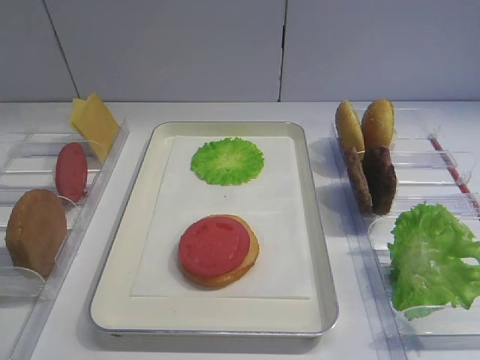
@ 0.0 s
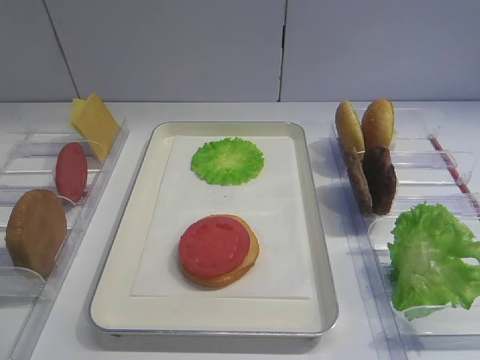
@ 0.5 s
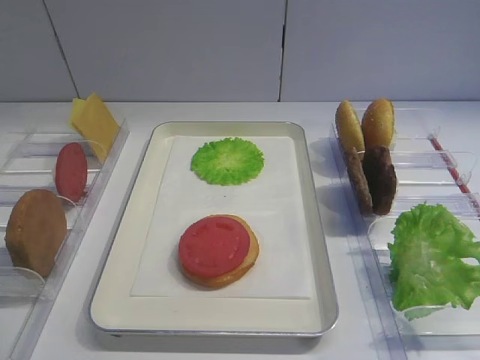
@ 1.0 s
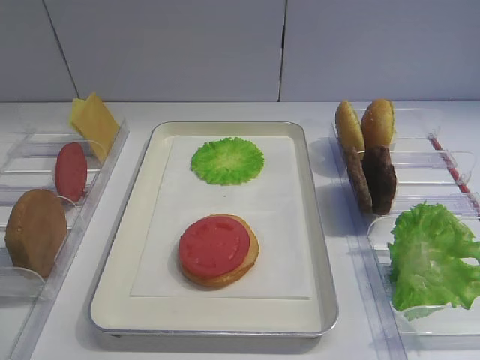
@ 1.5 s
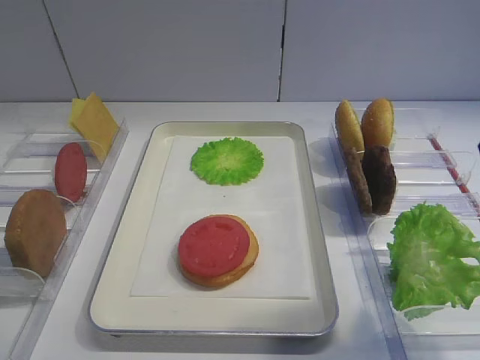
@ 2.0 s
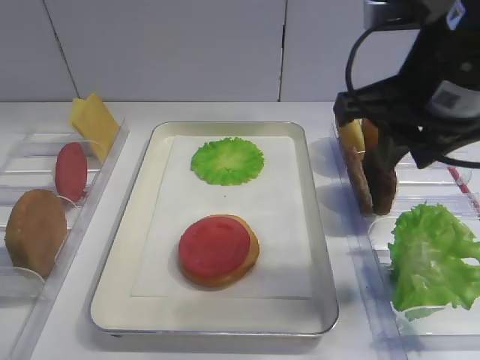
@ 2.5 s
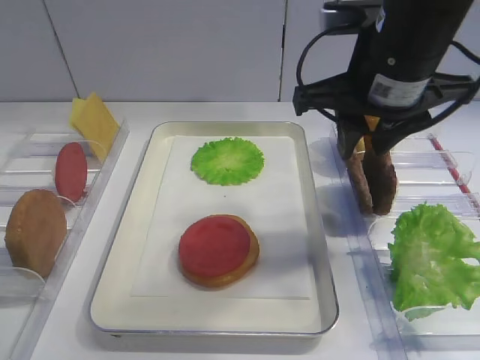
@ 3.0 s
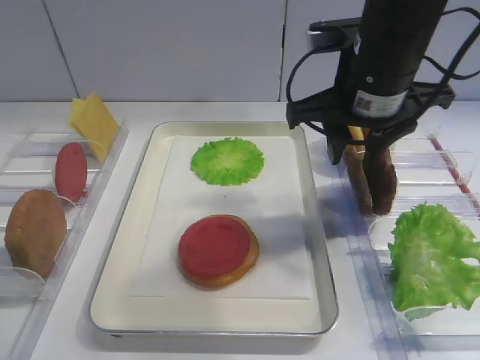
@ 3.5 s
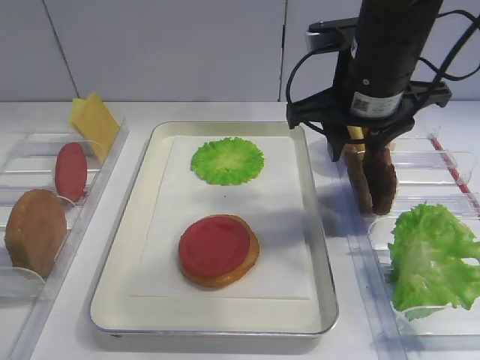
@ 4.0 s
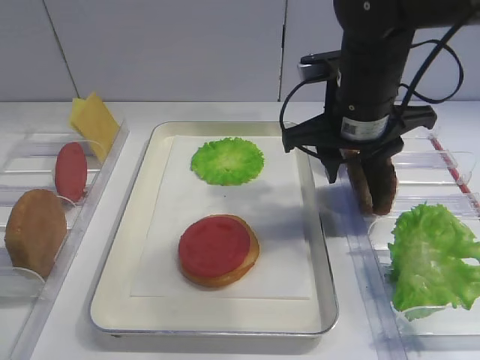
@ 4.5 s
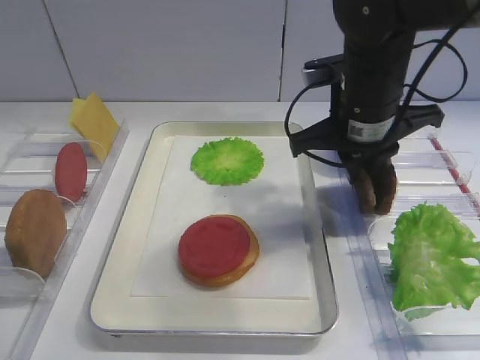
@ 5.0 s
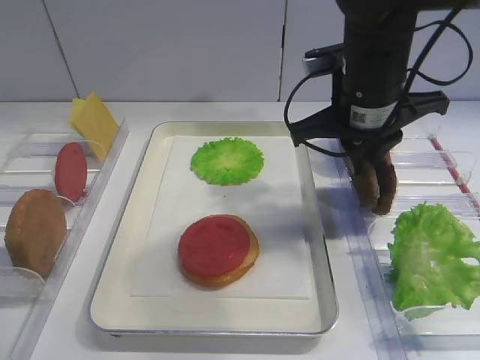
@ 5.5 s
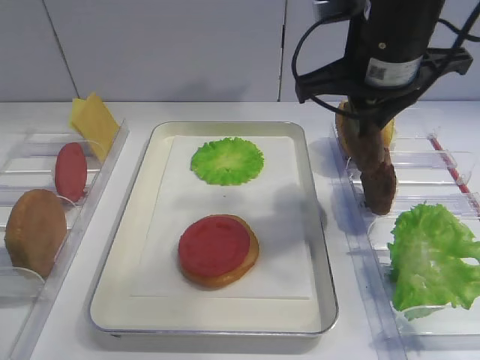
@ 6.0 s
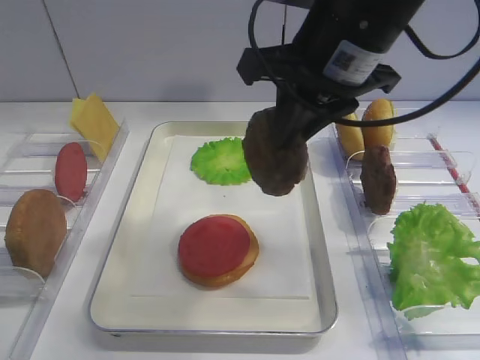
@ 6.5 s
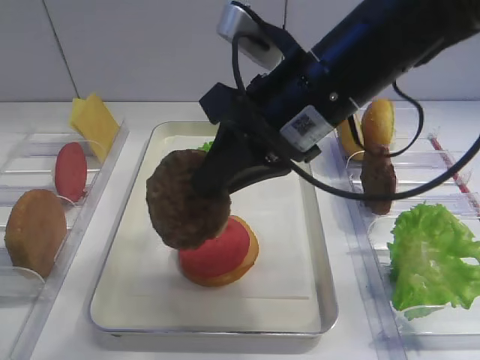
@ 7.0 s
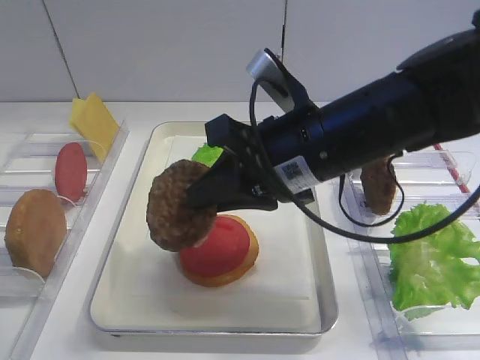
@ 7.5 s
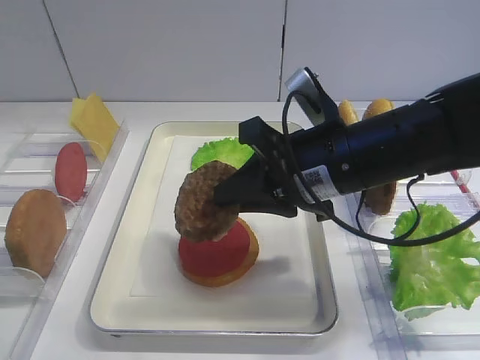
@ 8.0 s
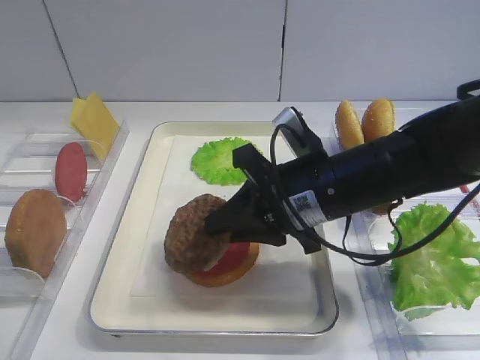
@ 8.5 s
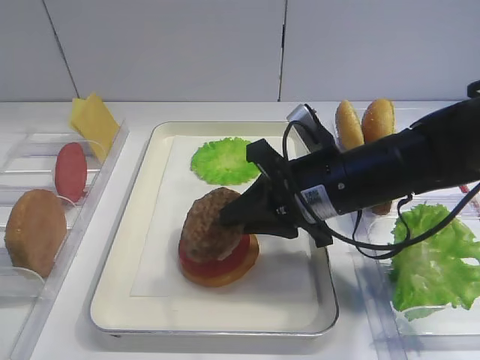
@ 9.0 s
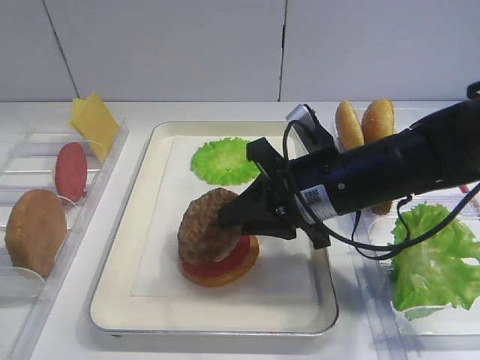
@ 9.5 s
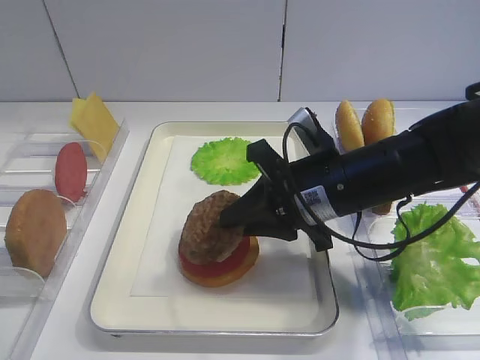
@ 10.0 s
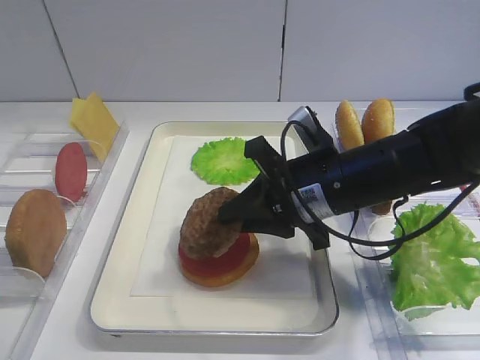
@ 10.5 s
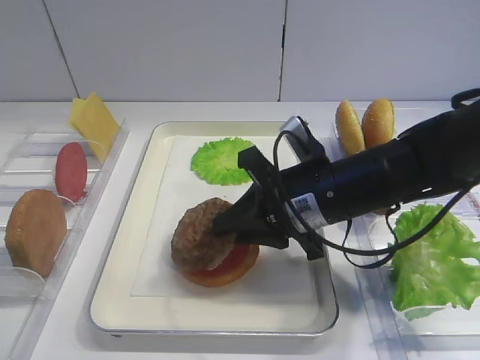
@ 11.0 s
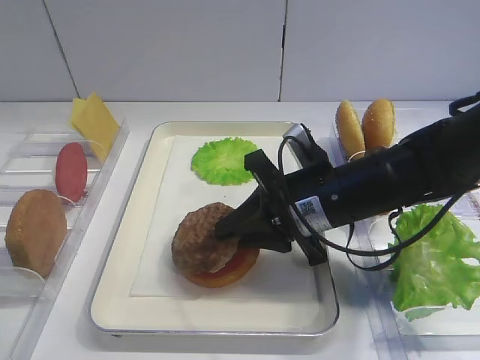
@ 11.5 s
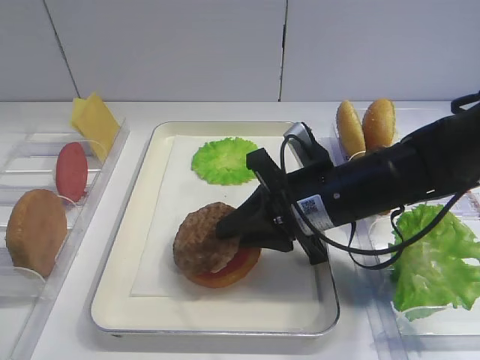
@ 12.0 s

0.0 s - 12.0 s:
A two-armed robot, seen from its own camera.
Step, 0.0 s - 5.5 s: Pick up the cutlet with the right gripper.
2.0 s - 4.0 s: The right gripper travels forward, to the left and downward by about 20 cm.
4.0 s - 6.0 s: The right gripper closes up.
6.0 s - 8.0 s: The right gripper heads downward and backward, covering approximately 10 cm.
8.0 s - 10.0 s: The grippers make only small movements.
10.0 s - 12.0 s: The grippers move only a little.

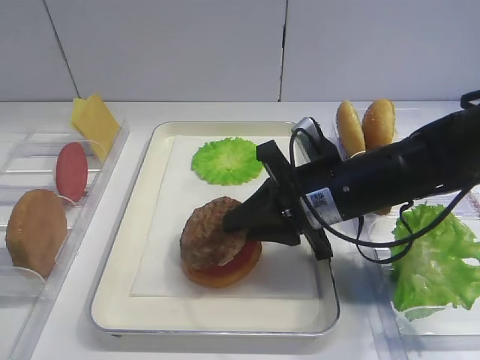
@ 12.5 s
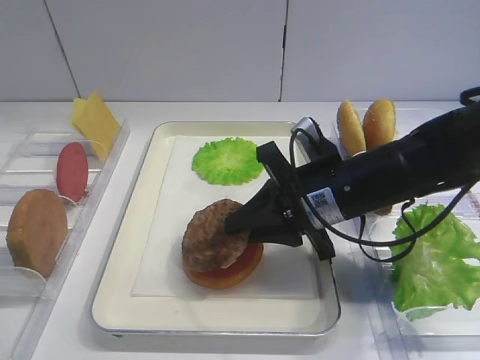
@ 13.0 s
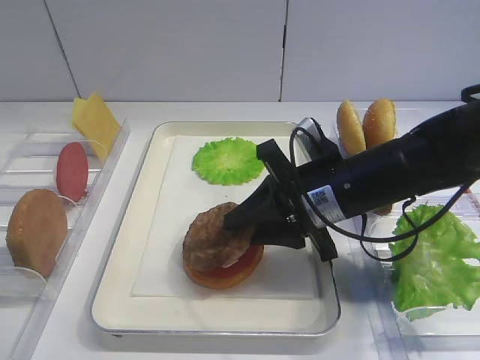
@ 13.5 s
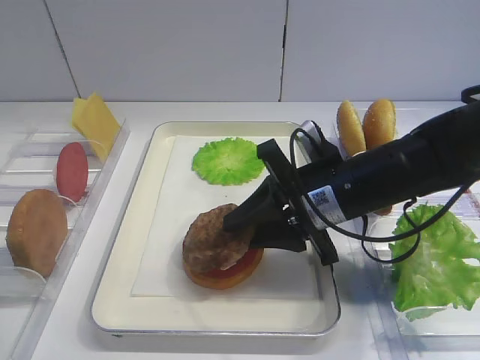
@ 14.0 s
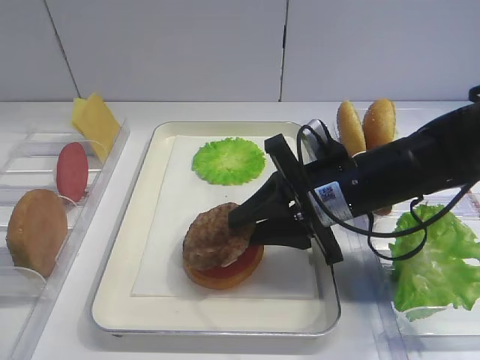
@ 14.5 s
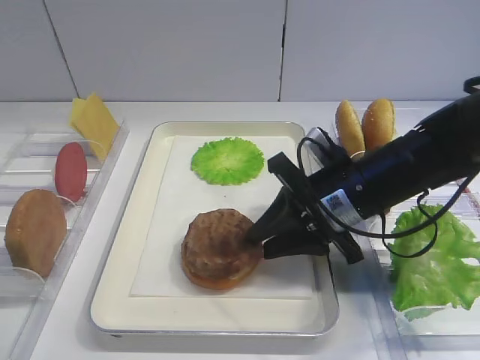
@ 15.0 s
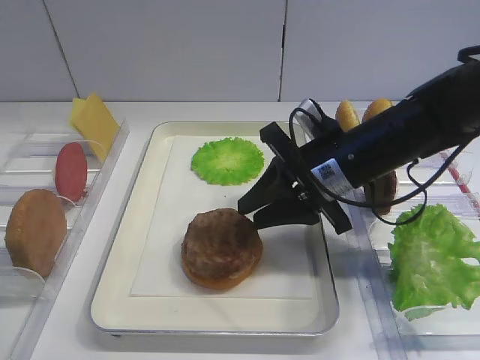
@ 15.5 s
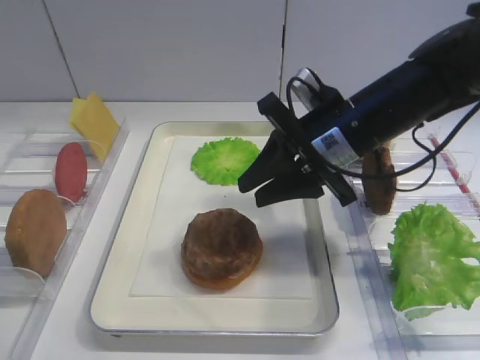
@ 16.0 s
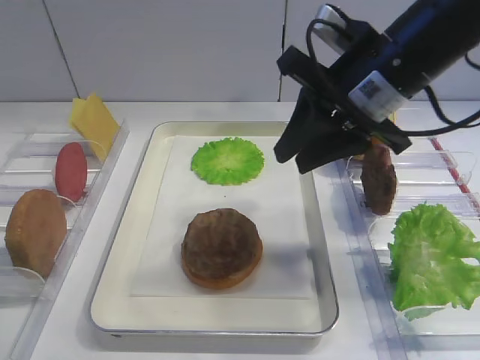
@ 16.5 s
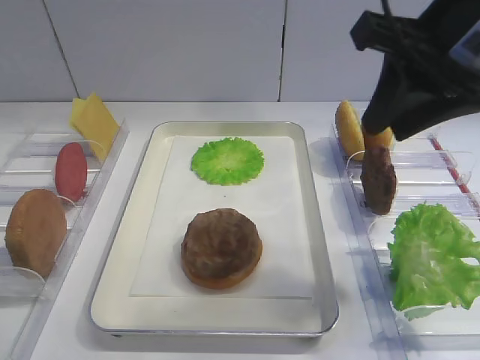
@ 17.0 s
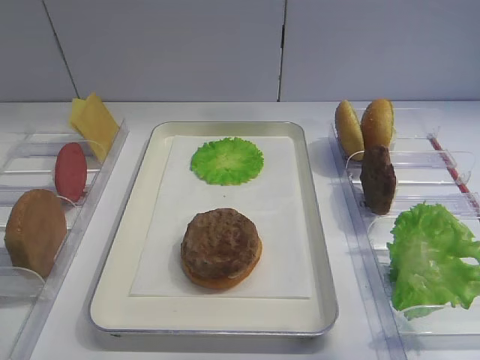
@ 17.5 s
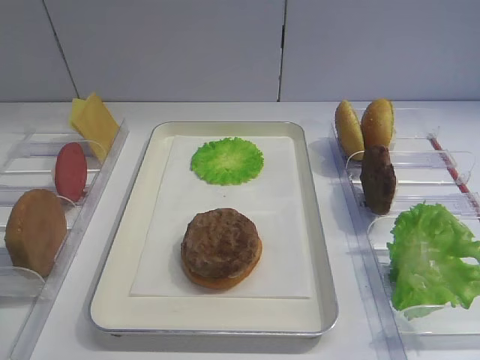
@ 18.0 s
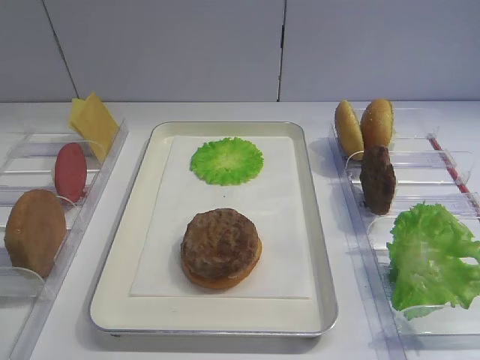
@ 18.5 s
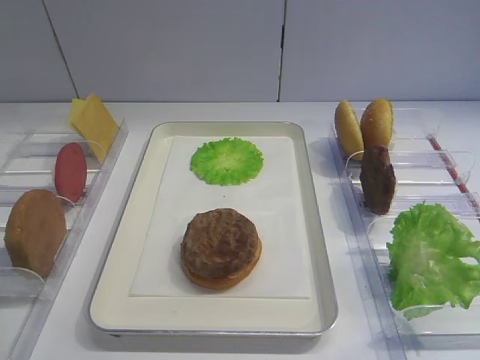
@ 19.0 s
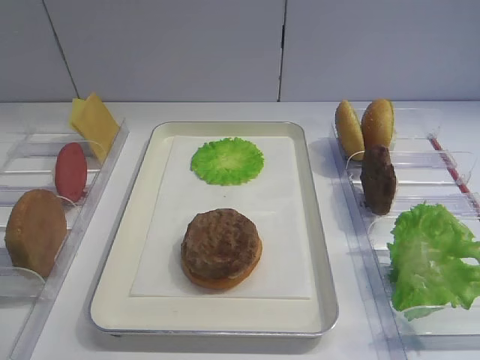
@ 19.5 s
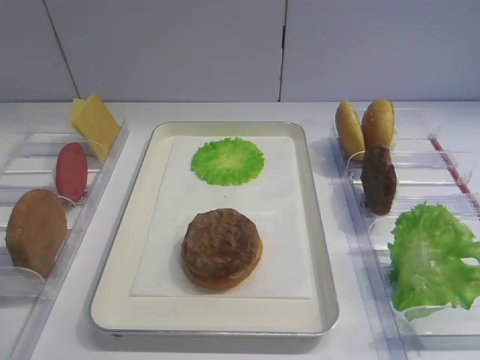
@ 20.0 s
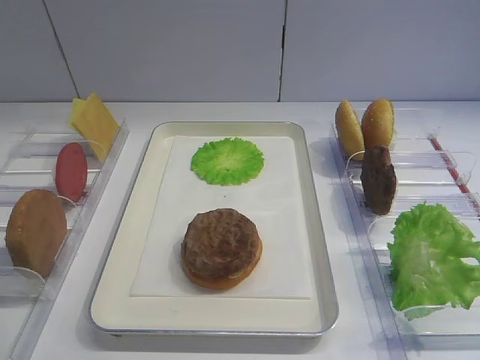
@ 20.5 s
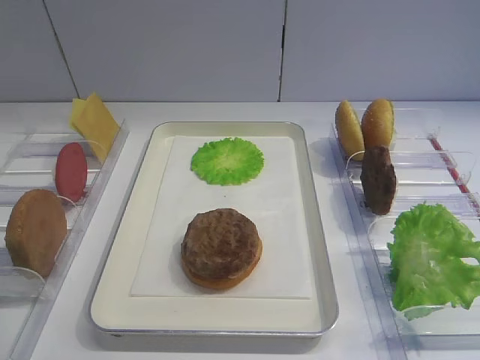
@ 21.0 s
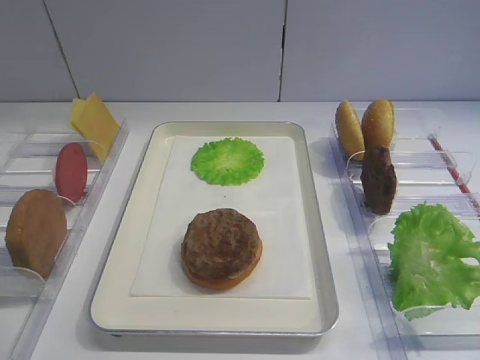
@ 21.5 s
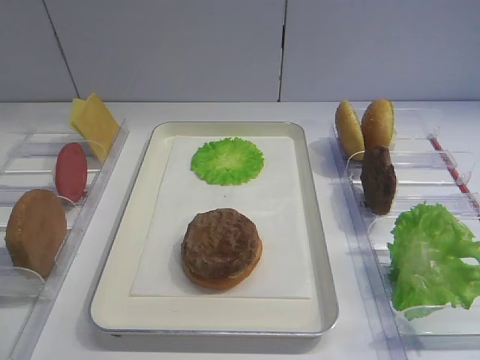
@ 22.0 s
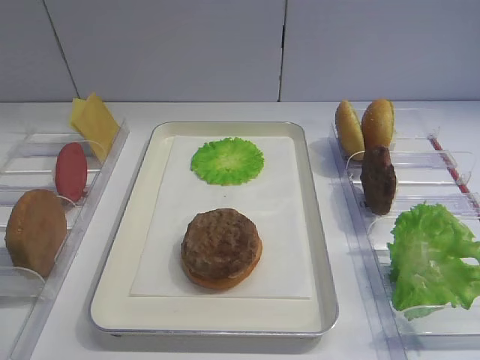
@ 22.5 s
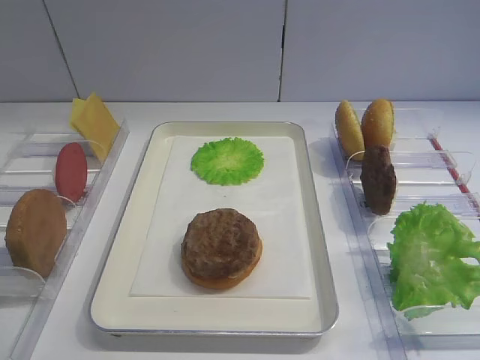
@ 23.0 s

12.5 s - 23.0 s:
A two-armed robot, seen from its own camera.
Step, 12.5 s - 15.5 s: Place the cutlet on the tomato slice with the right gripper.
12.5 s - 14.5 s: The right gripper opens up.
14.5 s - 16.5 s: The right gripper is displaced upward by approximately 10 cm.
16.5 s - 19.0 s: The right gripper heads backward and to the right, covering roughly 35 cm.

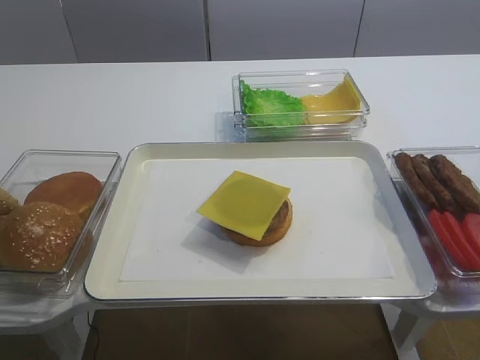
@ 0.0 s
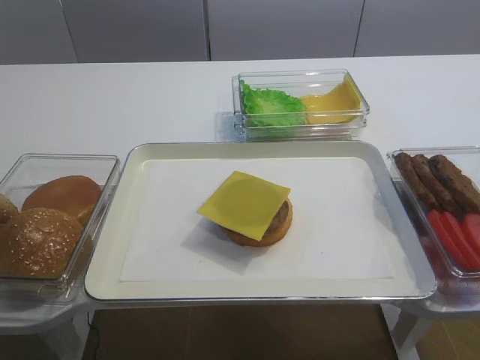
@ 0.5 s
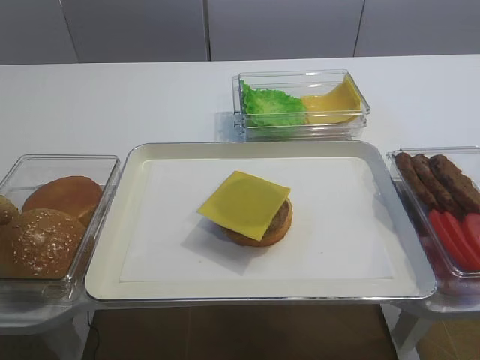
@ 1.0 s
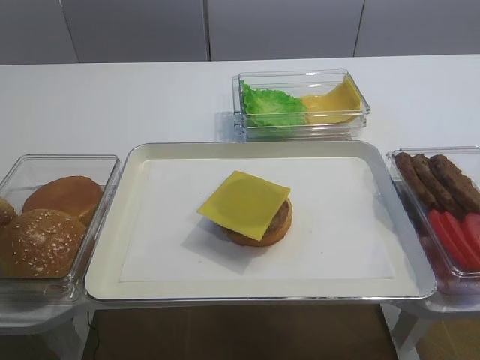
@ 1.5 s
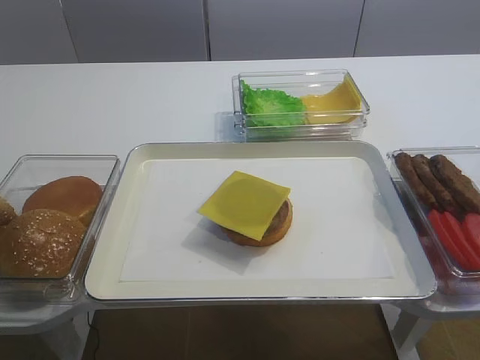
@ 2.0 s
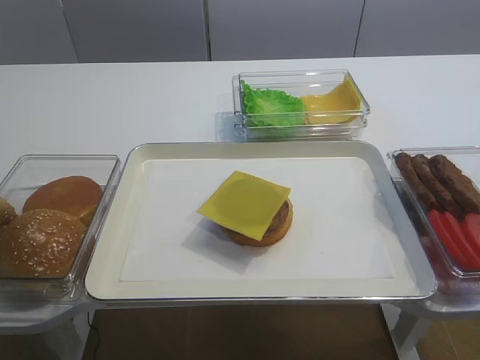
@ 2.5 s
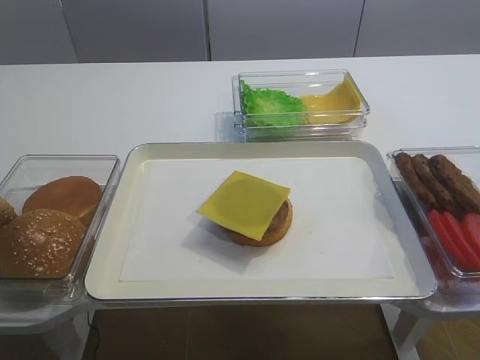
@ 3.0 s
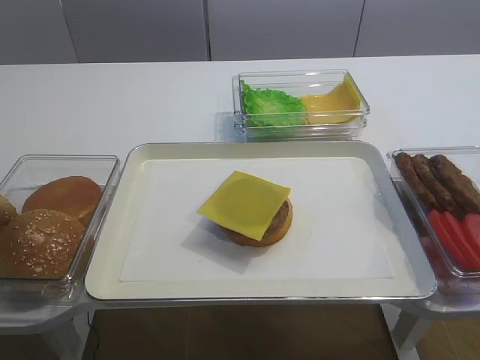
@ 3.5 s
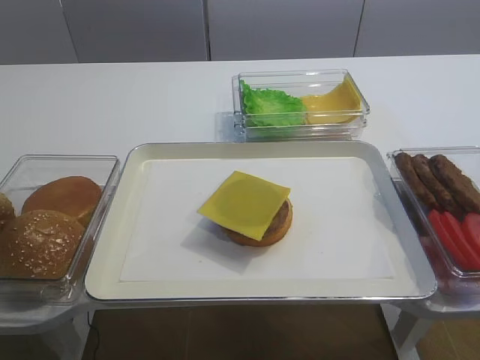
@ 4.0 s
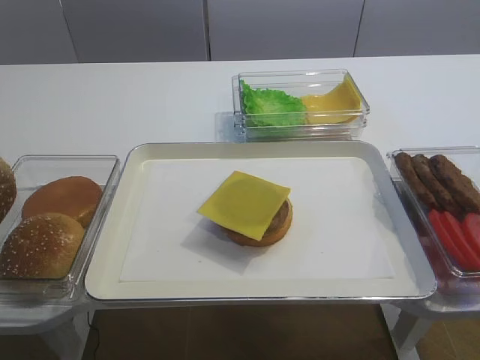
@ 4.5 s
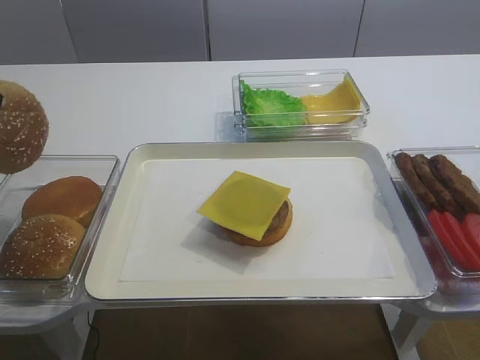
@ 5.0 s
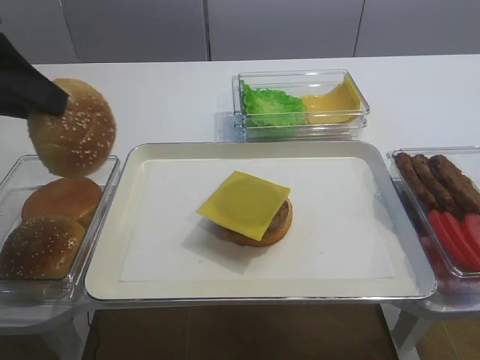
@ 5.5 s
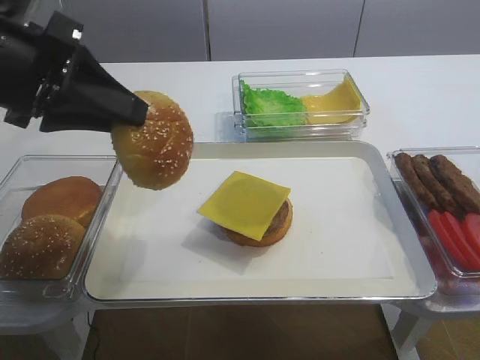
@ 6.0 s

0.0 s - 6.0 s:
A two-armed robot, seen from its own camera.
Step, 0.0 s - 4.5 s: Pick up the hamburger lid with the left gripper.
0.0 s - 2.0 s: The left gripper opens.
4.0 s - 6.0 s: The left gripper goes about 15 cm to the right and upward.
